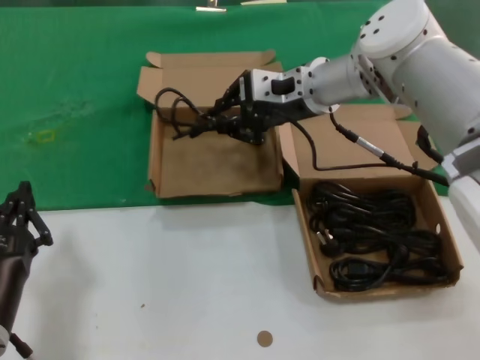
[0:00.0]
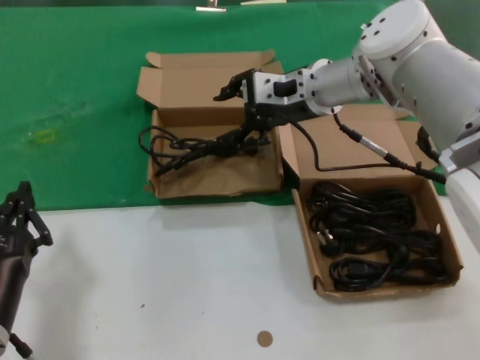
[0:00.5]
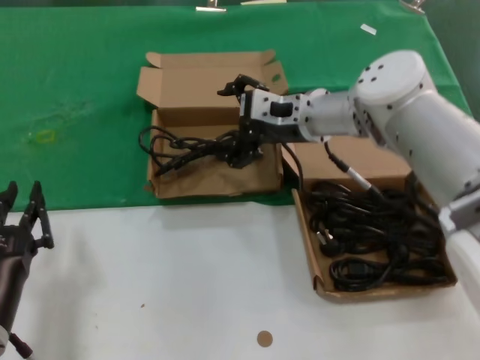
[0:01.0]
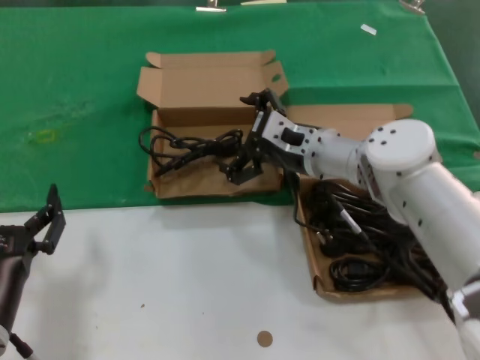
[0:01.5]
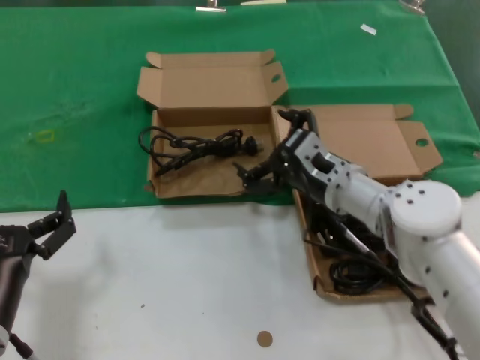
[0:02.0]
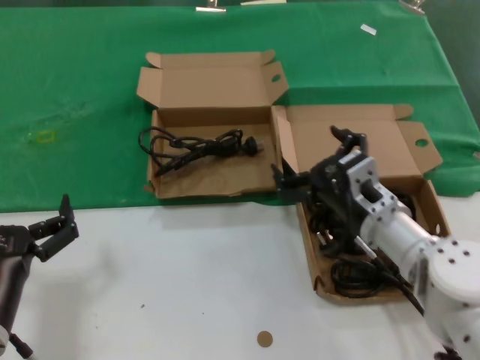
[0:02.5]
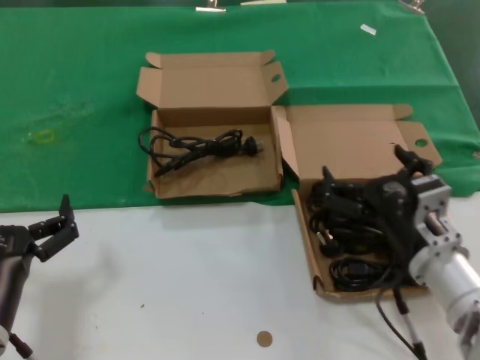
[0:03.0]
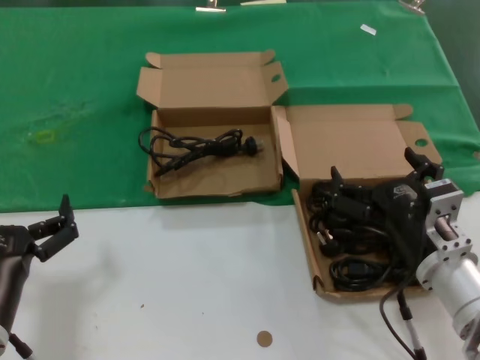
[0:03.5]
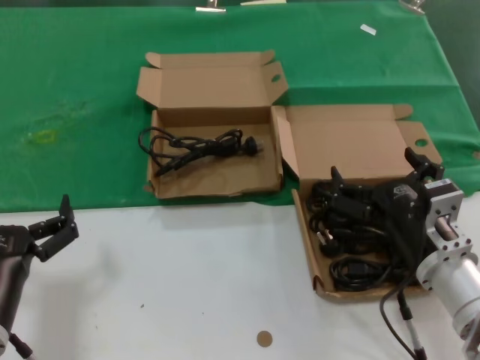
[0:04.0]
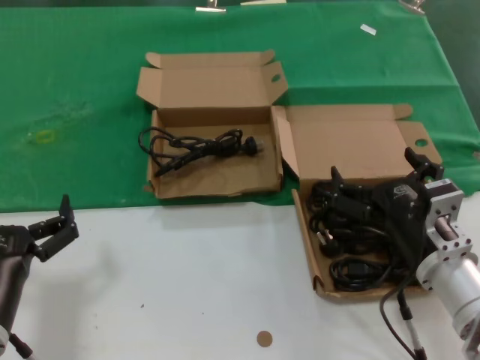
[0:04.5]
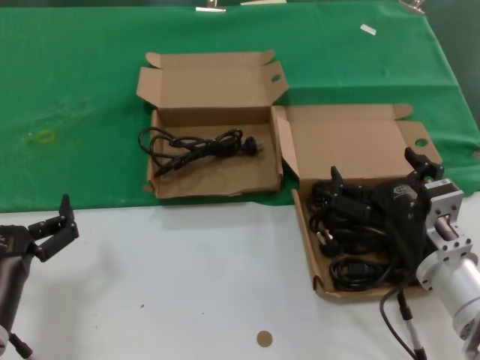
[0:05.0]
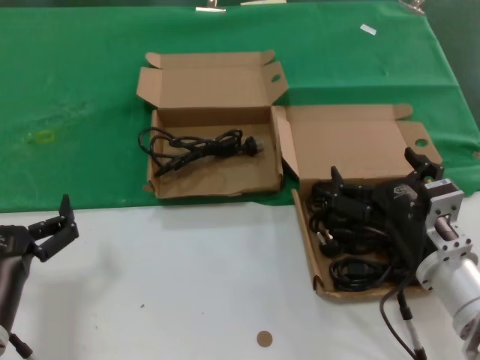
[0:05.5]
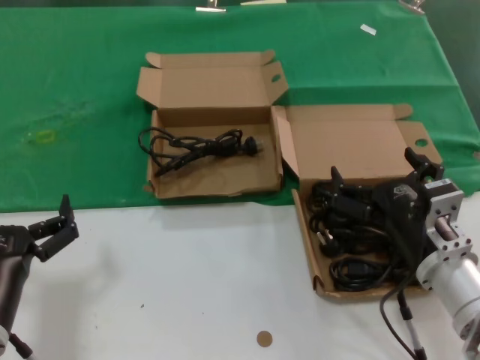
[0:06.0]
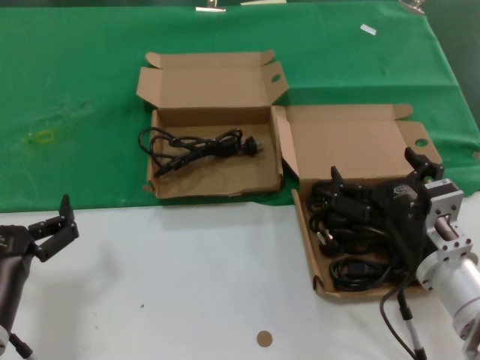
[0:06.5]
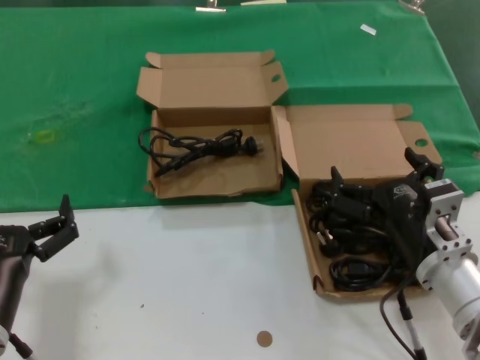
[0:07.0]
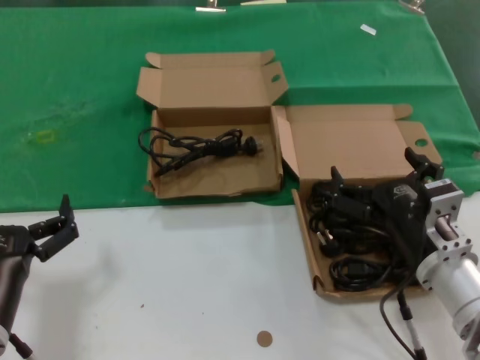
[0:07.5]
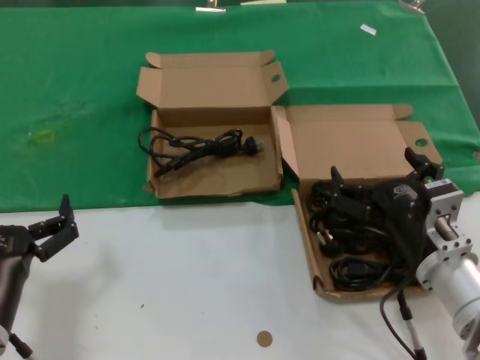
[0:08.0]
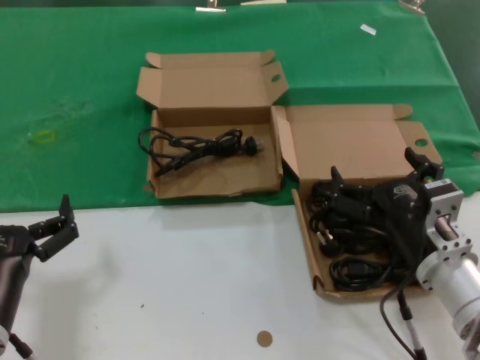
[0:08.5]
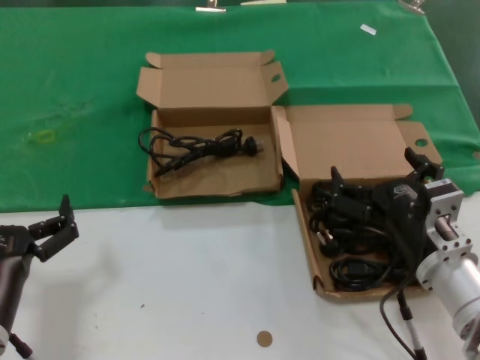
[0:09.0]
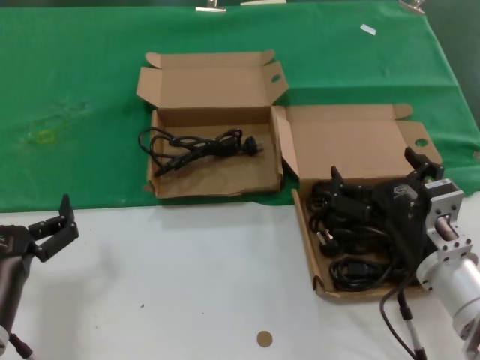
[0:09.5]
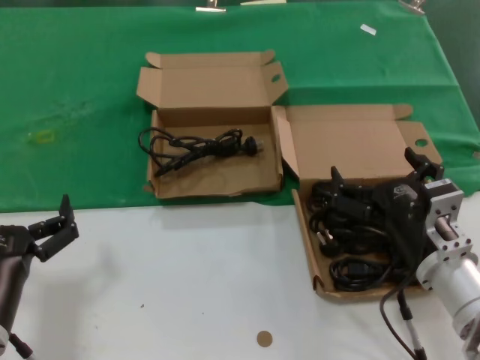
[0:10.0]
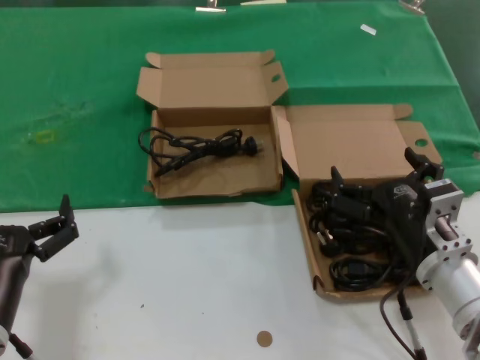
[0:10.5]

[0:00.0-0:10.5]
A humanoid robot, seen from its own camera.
Task of the whole recording: take the parts from the box containing them and put them into an empty box.
0:00.0 to 0:02.0: The right hand goes about 20 cm downward and backward.
0:02.0 to 0:04.0: The right hand shifts approximately 15 cm backward.
0:04.0 to 0:10.5: Both hands stay put.
